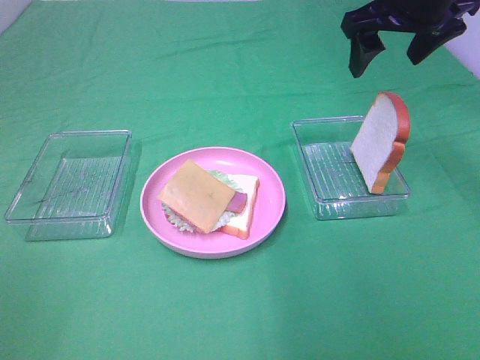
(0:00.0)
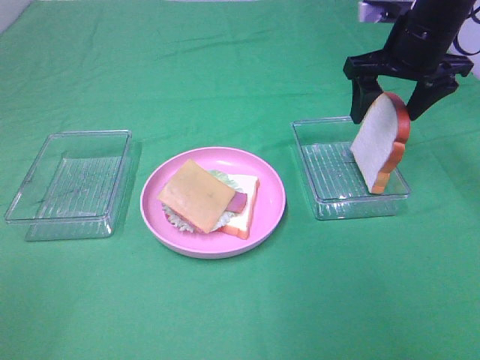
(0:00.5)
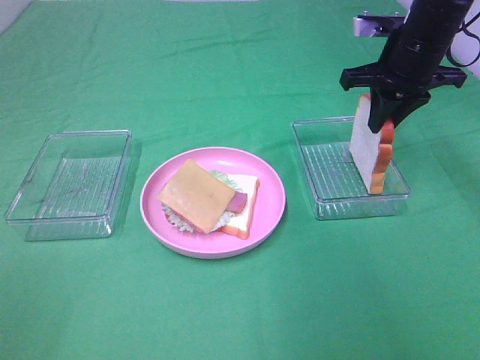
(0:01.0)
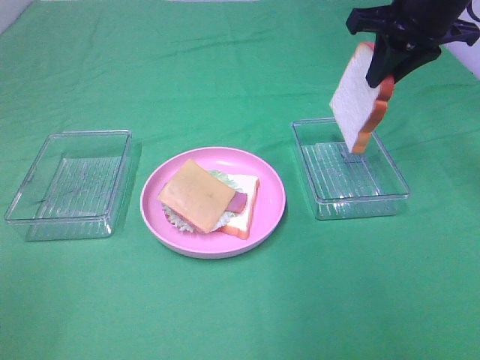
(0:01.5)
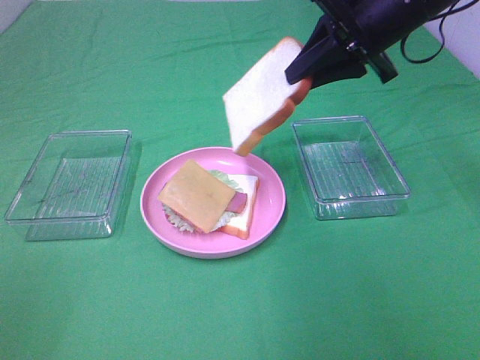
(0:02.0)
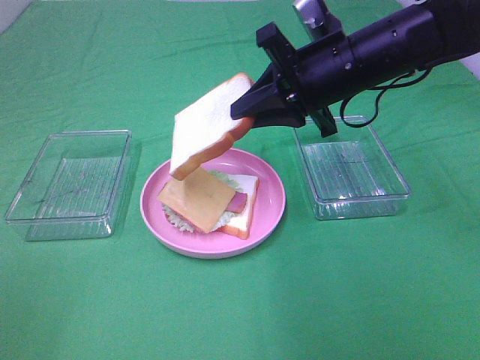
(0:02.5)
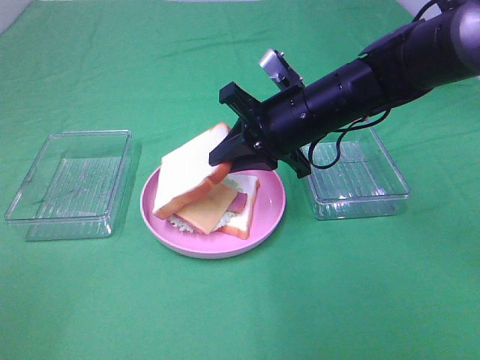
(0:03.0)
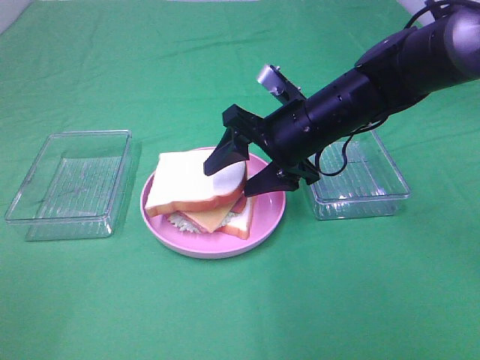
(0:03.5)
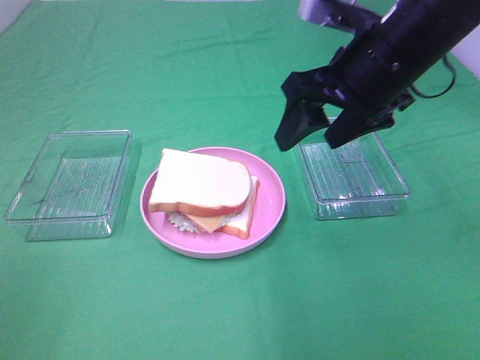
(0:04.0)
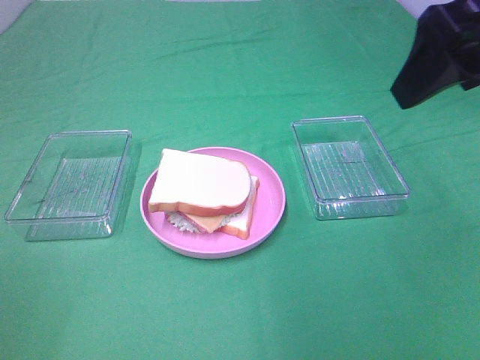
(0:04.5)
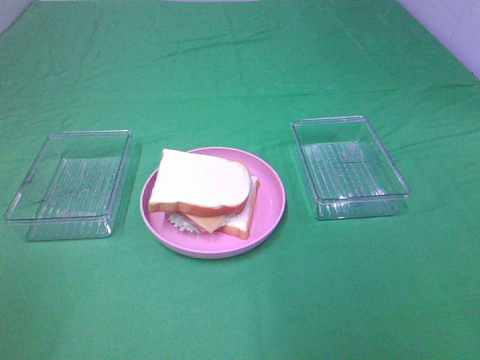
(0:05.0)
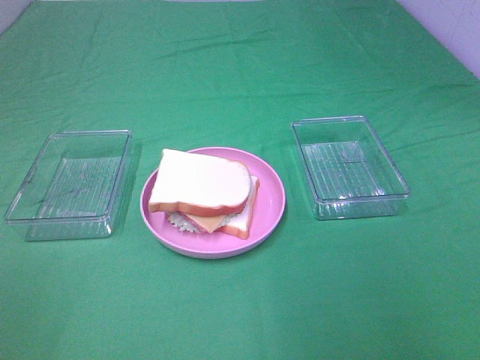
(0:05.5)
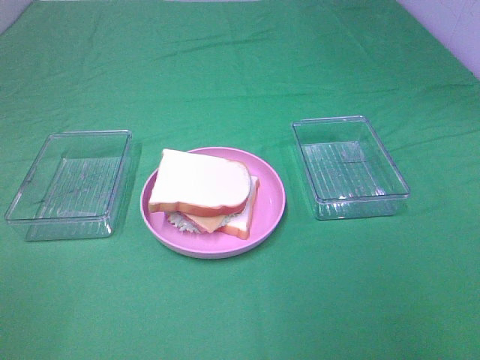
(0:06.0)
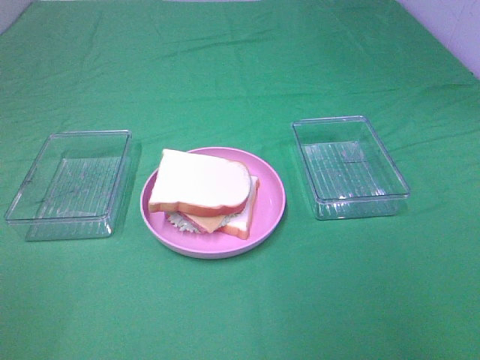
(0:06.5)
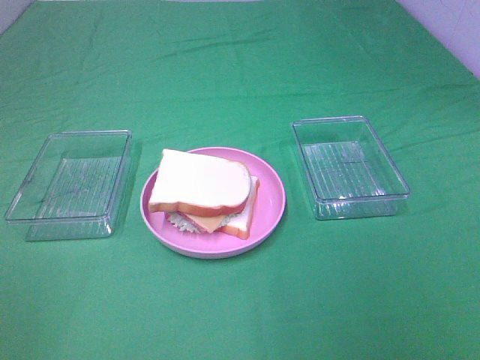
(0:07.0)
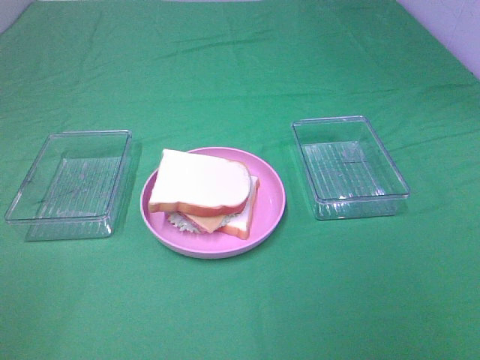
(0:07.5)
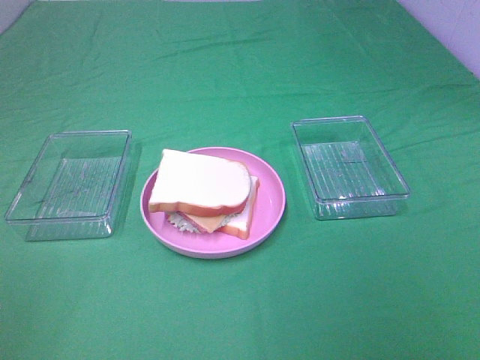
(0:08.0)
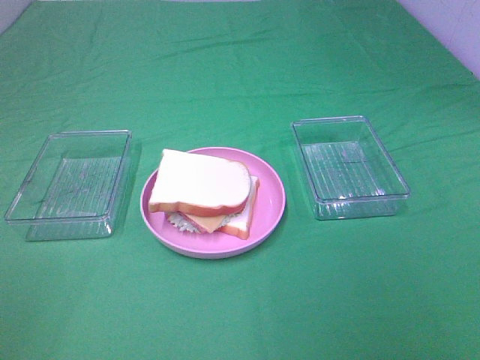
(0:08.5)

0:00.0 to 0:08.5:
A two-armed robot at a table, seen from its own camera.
Task of the whole recording: Make sandwiches.
Step, 0:01.5 to 0:03.5: Right hand:place the bread slice on the cheese slice.
0:00.0 to 0:02.0: The right gripper closes.
0:02.0 to 0:04.0: The right gripper moves backward, about 10 cm, moves about 10 cm downward and comes back, and opens its fingers.
0:04.0 to 0:06.5: The right gripper heads backward and to the right, covering roughly 30 cm.
